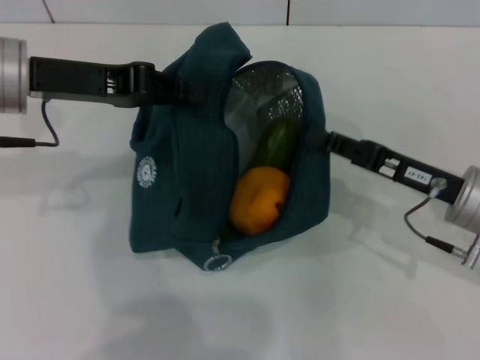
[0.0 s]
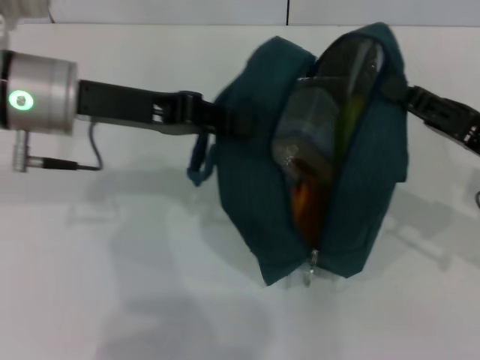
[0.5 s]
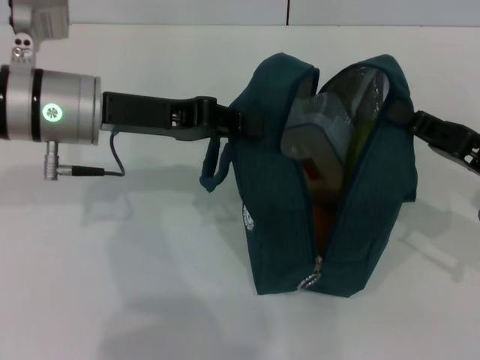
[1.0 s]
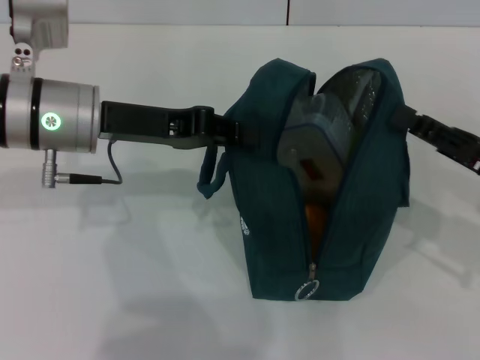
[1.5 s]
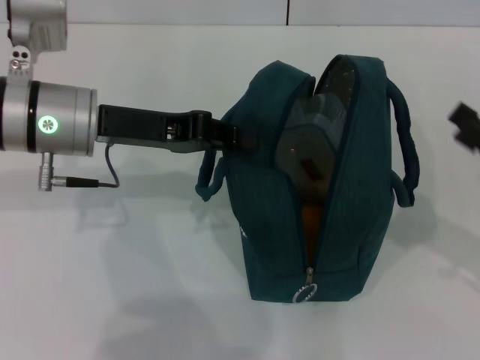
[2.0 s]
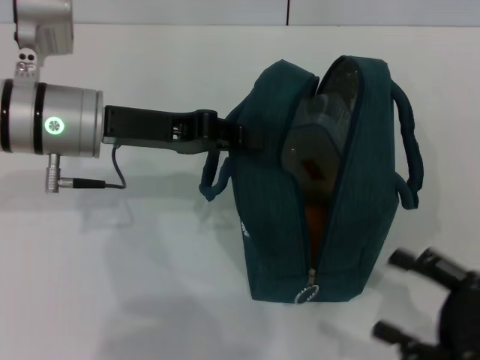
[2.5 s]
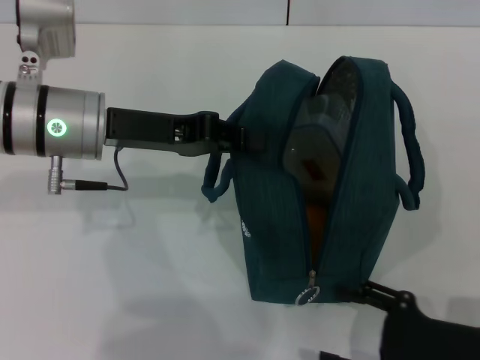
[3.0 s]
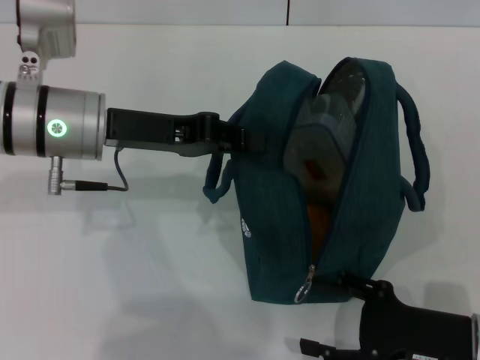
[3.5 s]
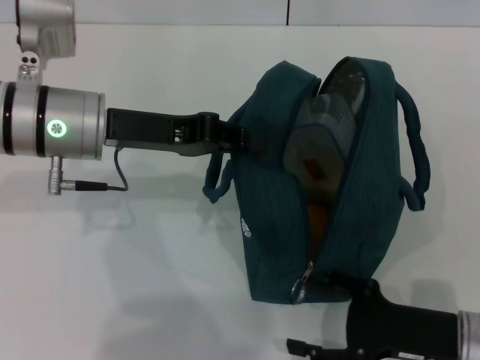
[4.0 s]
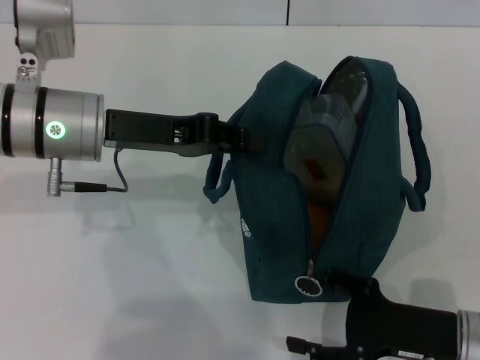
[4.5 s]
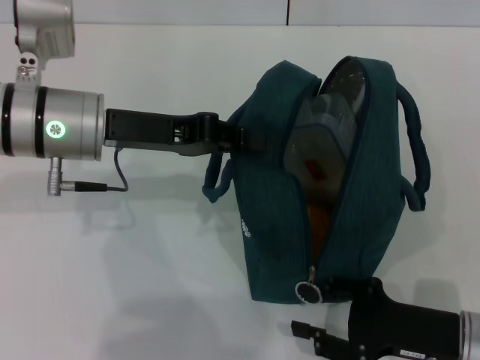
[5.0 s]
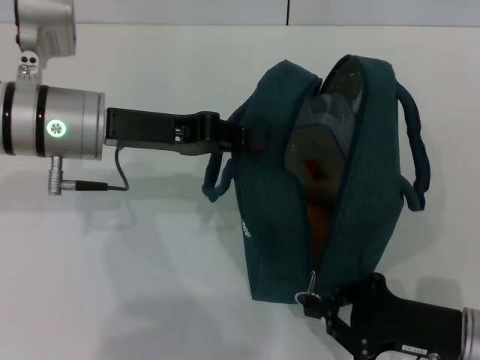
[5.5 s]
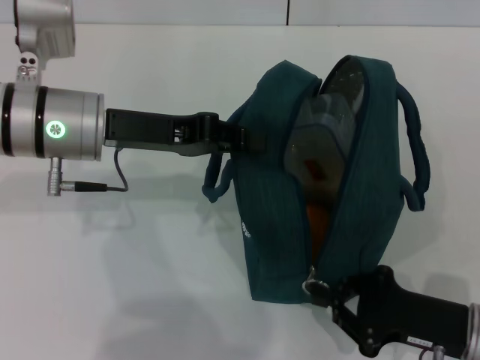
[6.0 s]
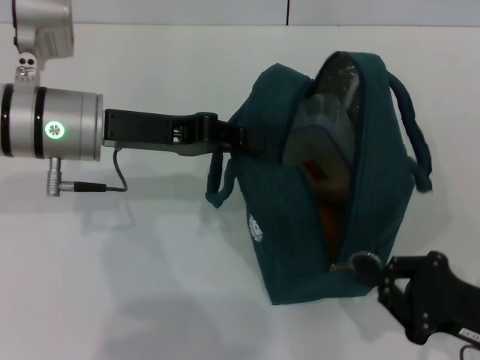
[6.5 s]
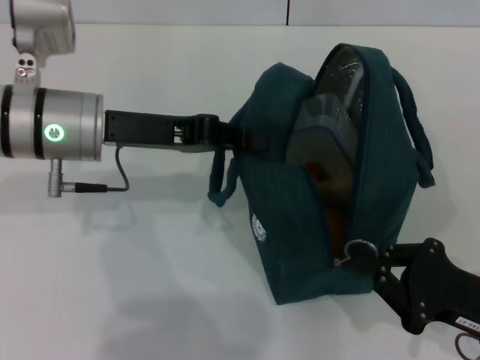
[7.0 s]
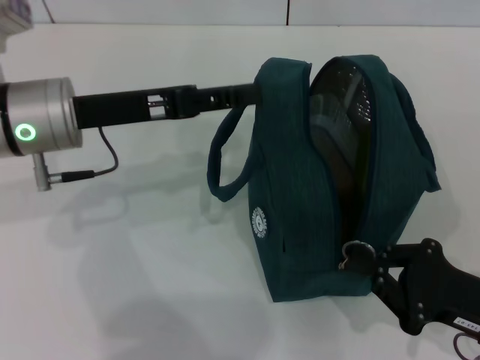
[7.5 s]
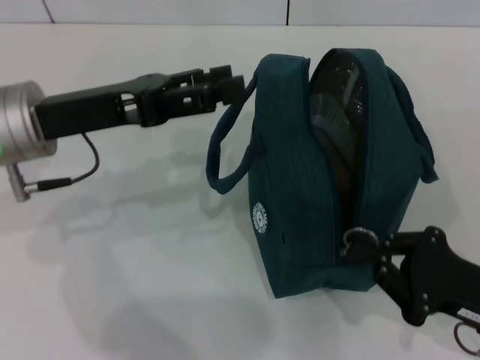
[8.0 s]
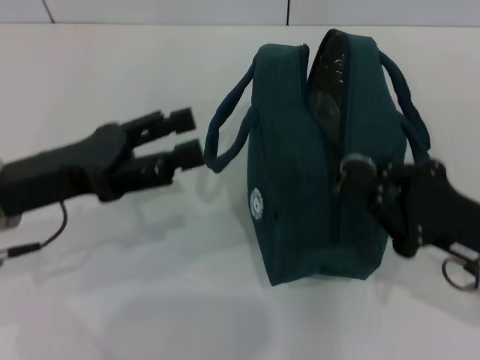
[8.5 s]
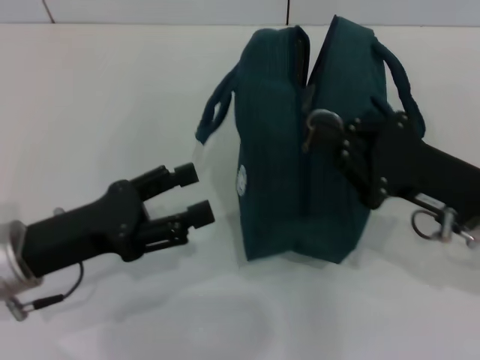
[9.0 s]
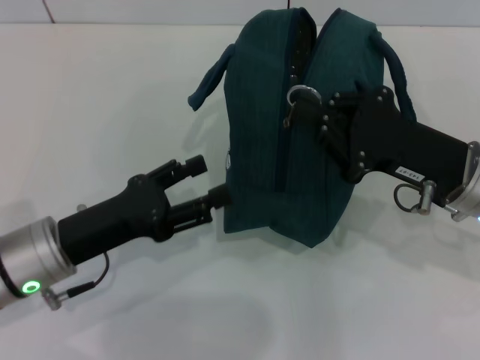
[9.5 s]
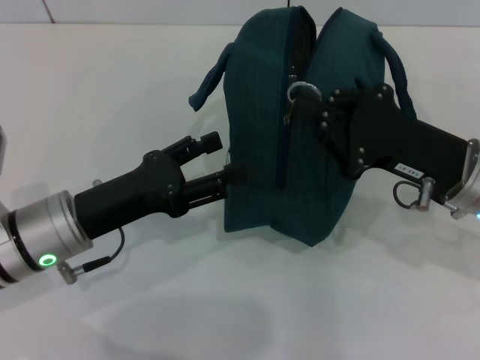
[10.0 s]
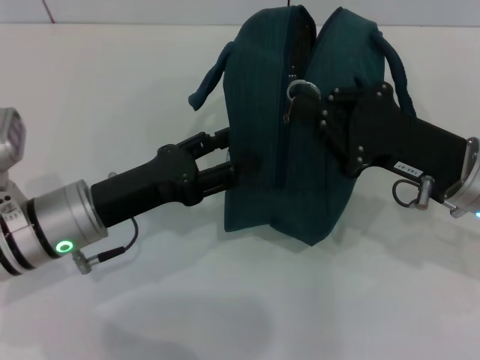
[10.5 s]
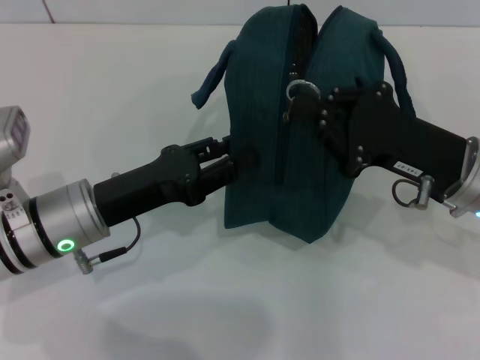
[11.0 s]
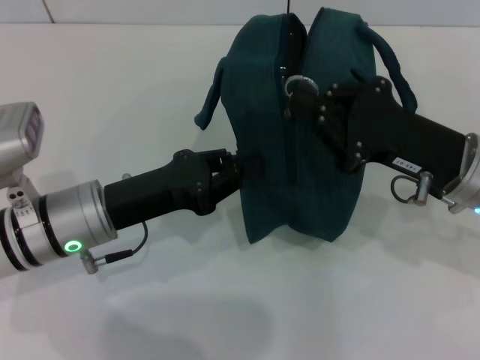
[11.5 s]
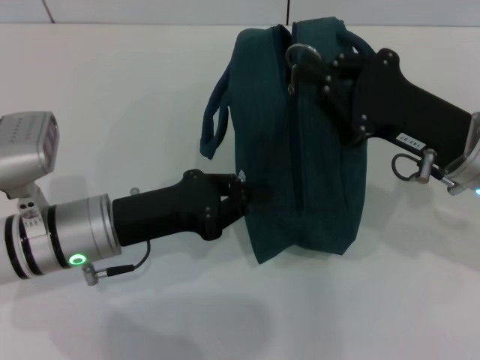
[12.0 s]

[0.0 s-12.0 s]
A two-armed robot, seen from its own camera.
0.0 to 2.0 s: The left gripper moves some 5 cm. The right gripper moves to the right and backward, about 10 cm.
2.0 to 4.0 s: The right gripper is displaced to the left and downward by some 10 cm.
4.0 to 6.0 s: The right gripper closes up.
6.0 to 8.0 s: The left gripper opens its fingers.
8.0 to 10.0 s: The left gripper travels downward by roughly 10 cm. Meanwhile the right gripper is displaced forward, upward and to the left by some 15 cm.
10.0 to 12.0 s: The left gripper closes.

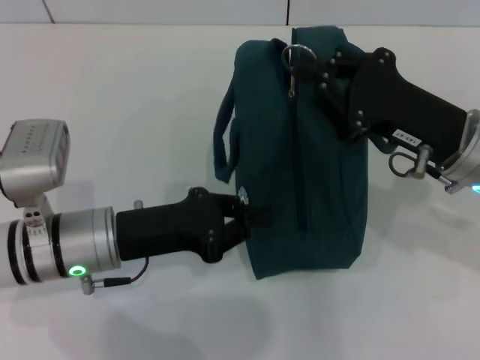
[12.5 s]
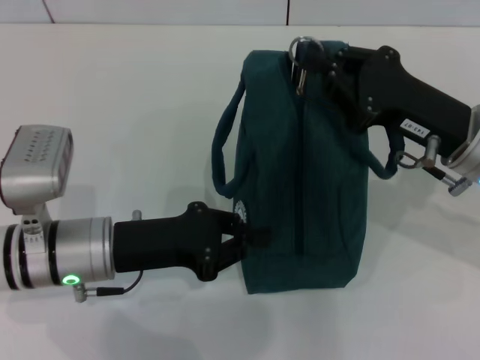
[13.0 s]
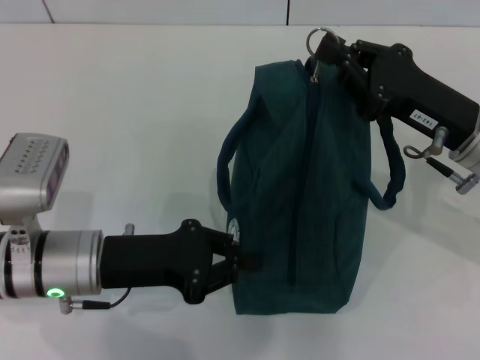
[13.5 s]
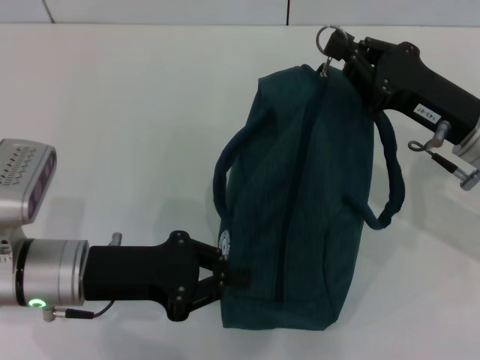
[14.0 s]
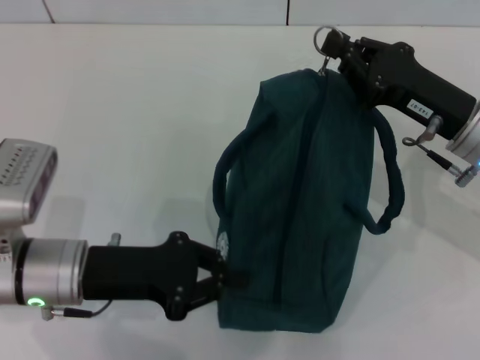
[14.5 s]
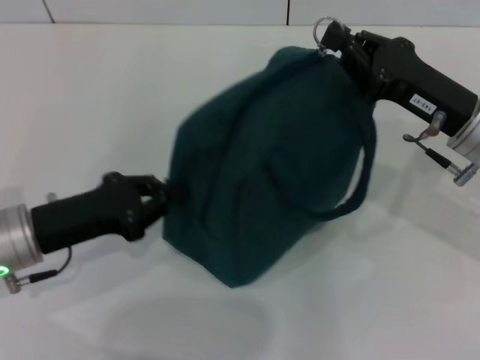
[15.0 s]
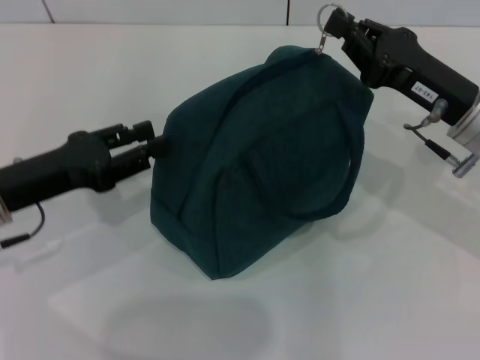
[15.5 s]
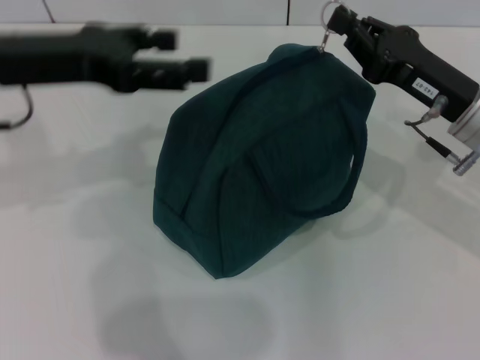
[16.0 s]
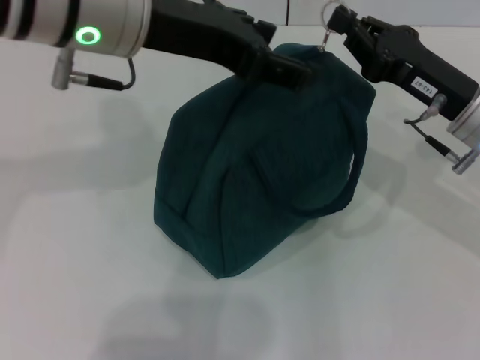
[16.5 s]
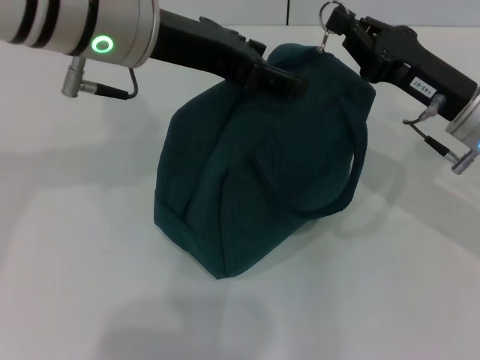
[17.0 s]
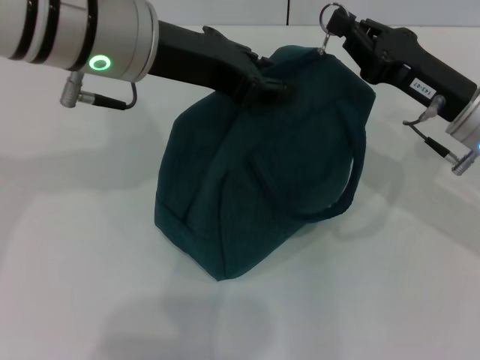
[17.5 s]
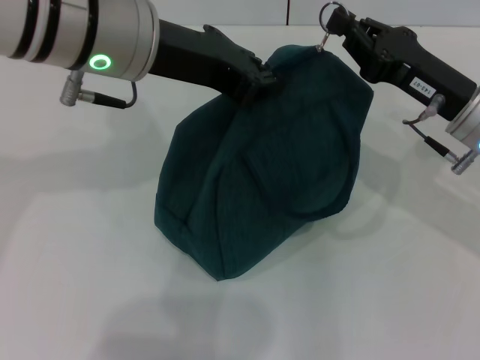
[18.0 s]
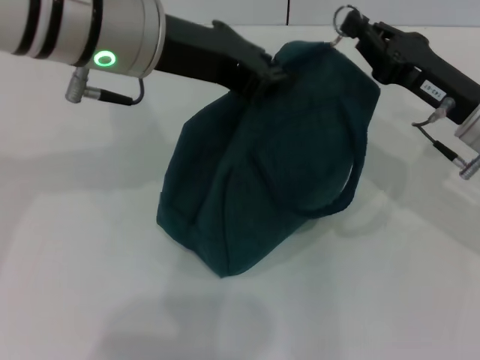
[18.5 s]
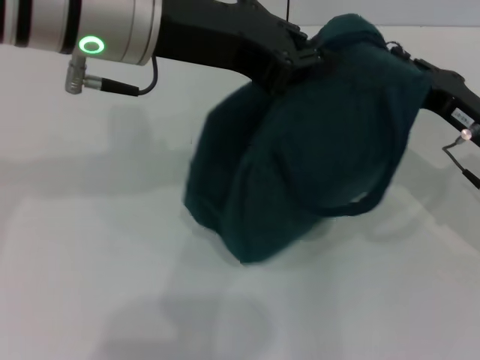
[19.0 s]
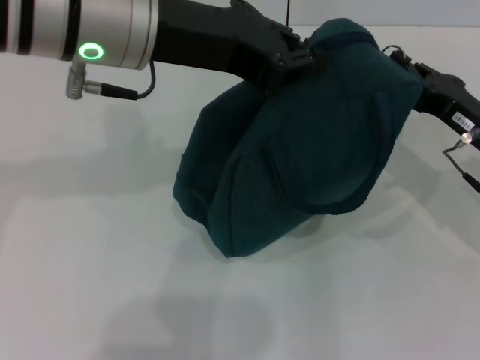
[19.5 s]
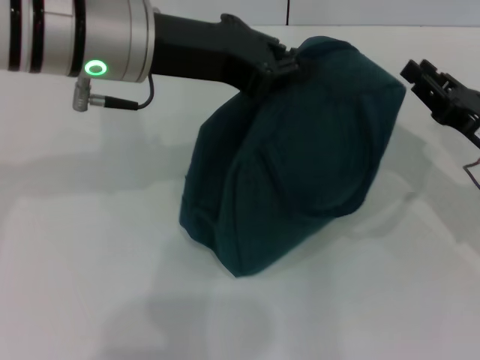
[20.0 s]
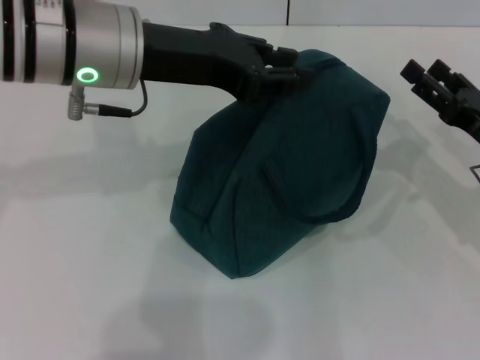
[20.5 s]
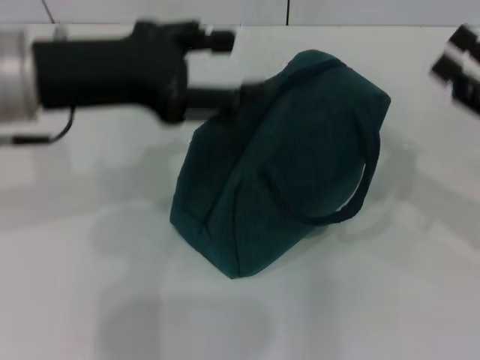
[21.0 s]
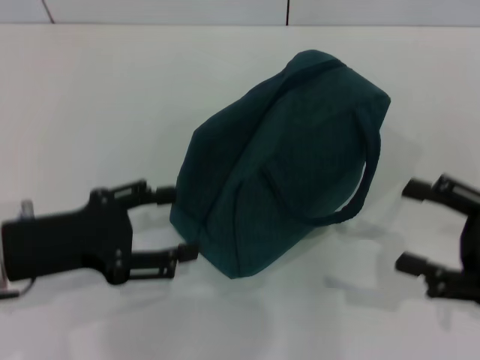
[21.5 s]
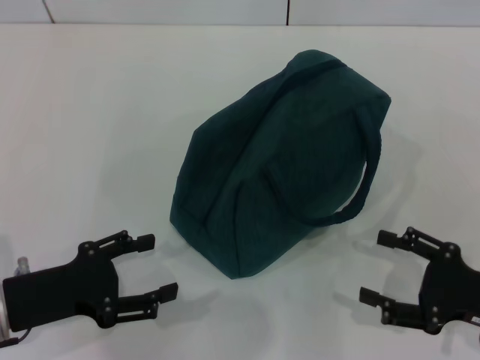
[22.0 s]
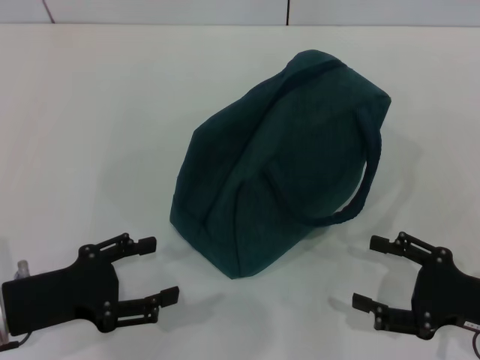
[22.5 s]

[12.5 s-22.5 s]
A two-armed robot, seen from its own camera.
Step, 12.5 to 19.5 s: Zip up the lunch bag with your right hand.
Step, 20.0 to 20.5 s: Hold the lunch bag with your left hand.
14.5 to 16.5 s: The left gripper is displaced upward by roughly 20 cm, and opens.
16.5 to 18.5 s: The left gripper closes its fingers.
18.5 to 20.5 s: The right gripper shifts some 5 cm to the right, and opens up.
20.5 to 22.5 s: The right gripper shifts some 10 cm backward. Meanwhile the left gripper heads downward, backward and to the left, covering approximately 25 cm, and opens up.

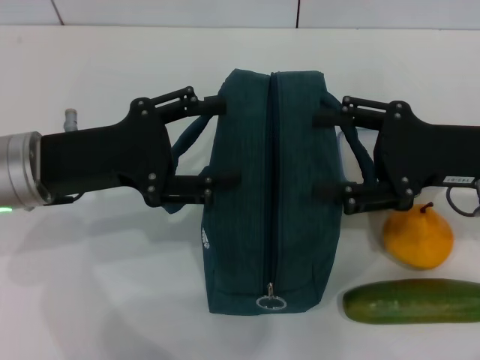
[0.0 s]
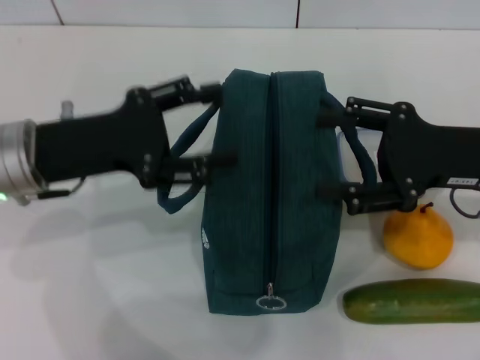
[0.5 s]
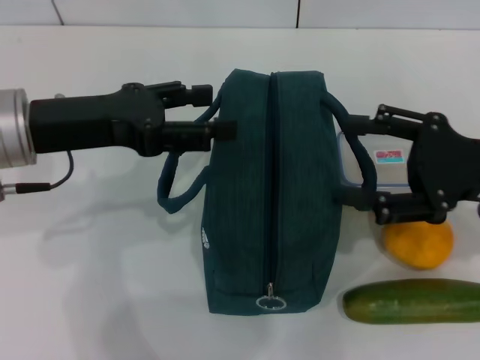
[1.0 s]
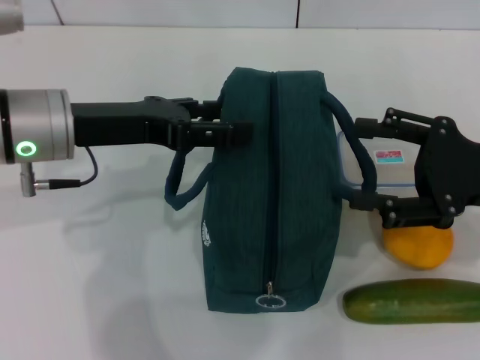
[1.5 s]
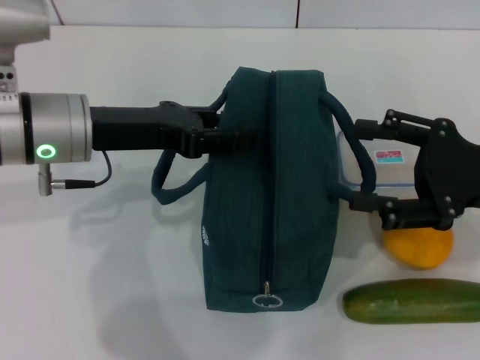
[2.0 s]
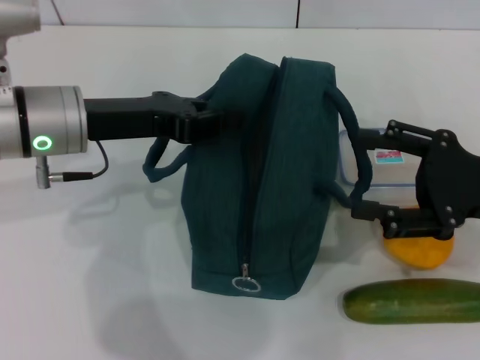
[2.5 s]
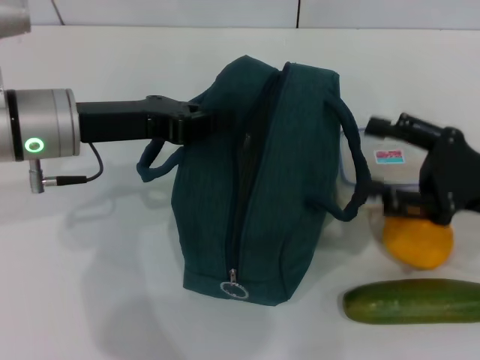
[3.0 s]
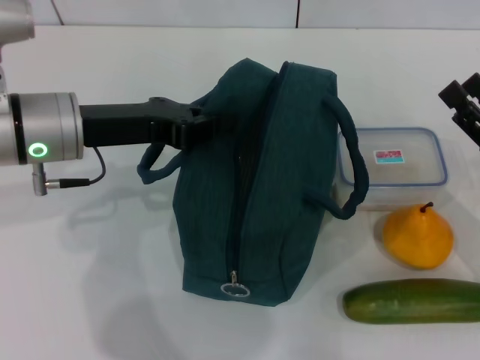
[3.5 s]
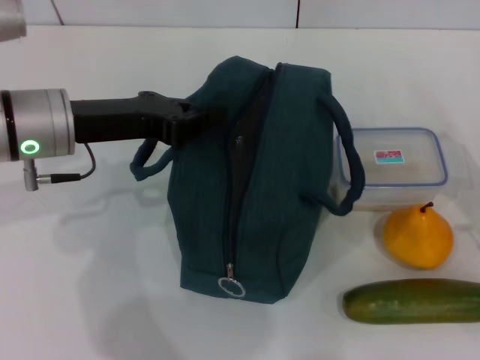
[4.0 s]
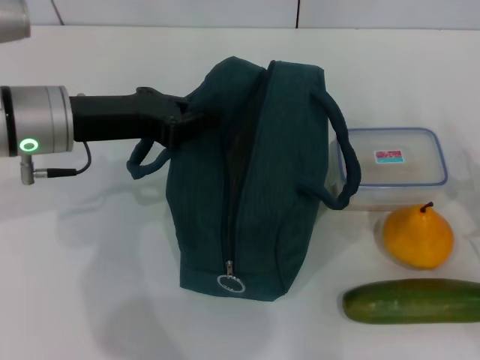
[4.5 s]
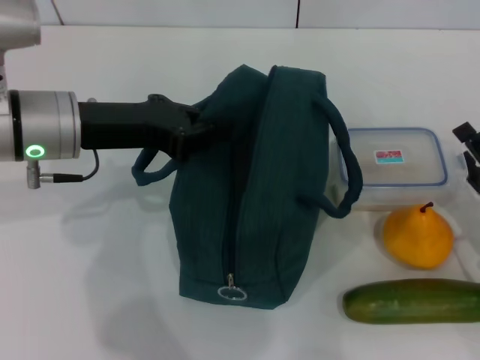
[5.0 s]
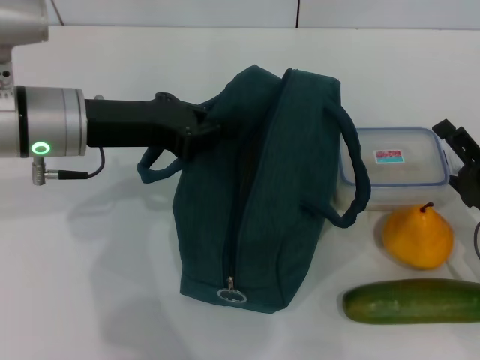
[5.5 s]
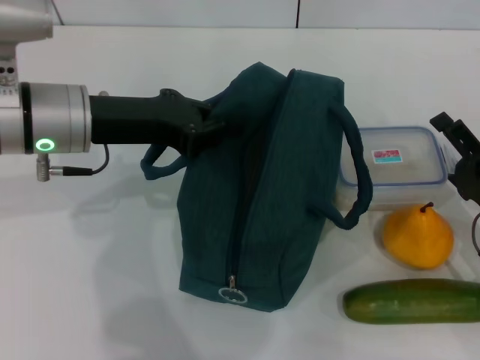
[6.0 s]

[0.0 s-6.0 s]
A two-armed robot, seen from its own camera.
Step, 0.0 to 2.0 s: Hold the lunch bag with your left hand.
0.0 to 2.0 s: The left gripper ends up roughly 5 cm from where it was.
2.0 to 4.0 s: The right gripper goes roughly 10 cm downward. The left gripper closes up.
4.0 to 6.0 s: The right gripper ends up approximately 5 cm from where it was.
